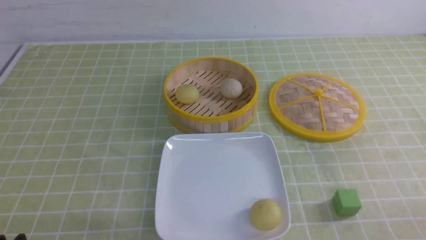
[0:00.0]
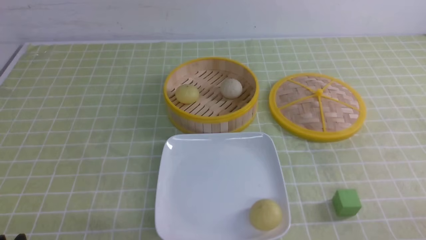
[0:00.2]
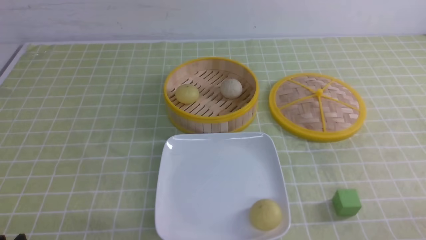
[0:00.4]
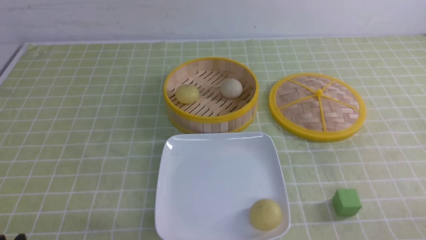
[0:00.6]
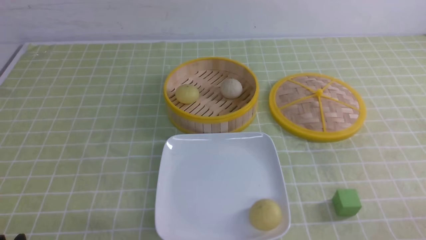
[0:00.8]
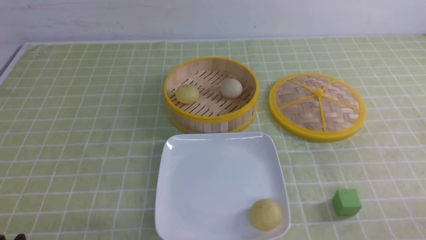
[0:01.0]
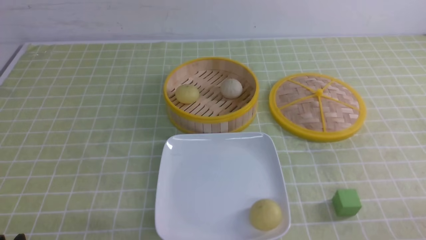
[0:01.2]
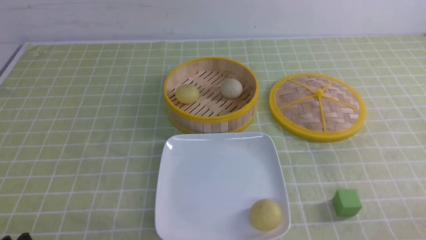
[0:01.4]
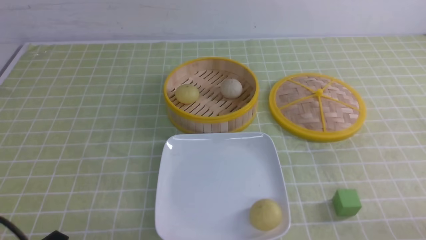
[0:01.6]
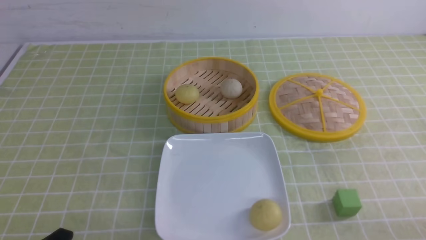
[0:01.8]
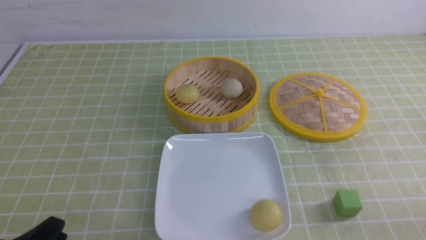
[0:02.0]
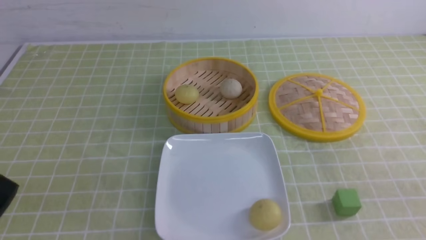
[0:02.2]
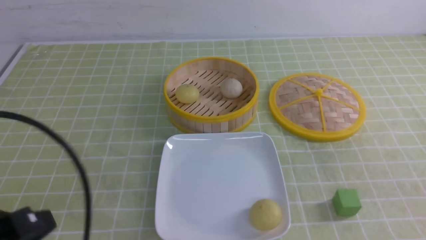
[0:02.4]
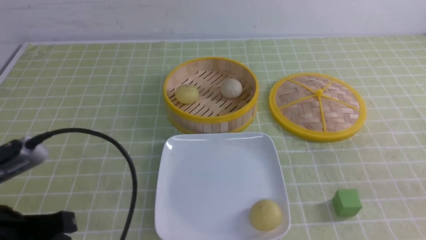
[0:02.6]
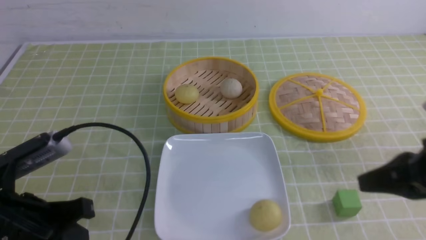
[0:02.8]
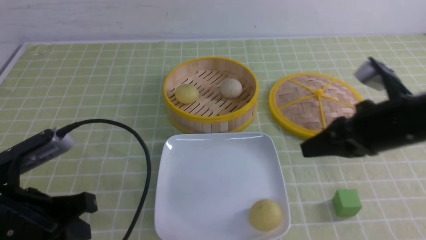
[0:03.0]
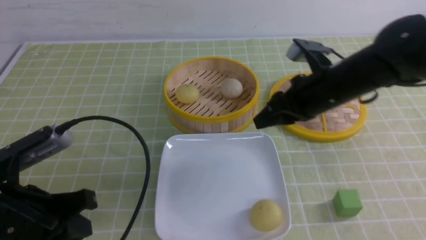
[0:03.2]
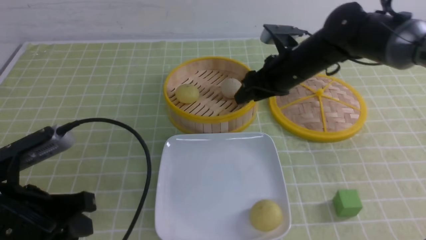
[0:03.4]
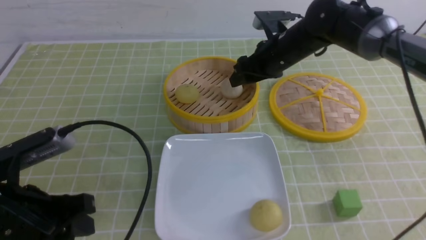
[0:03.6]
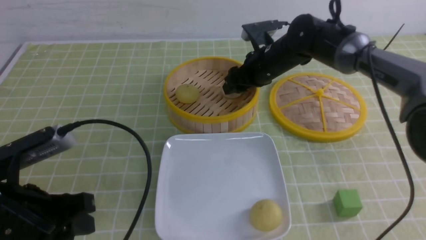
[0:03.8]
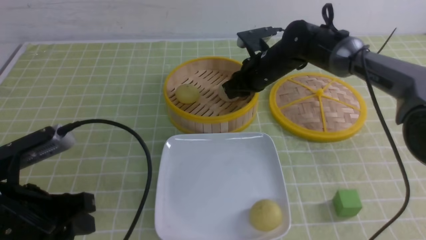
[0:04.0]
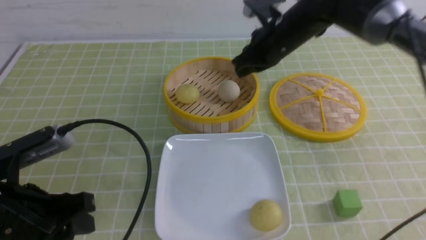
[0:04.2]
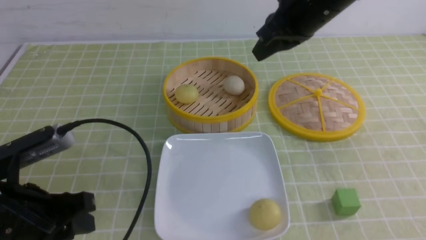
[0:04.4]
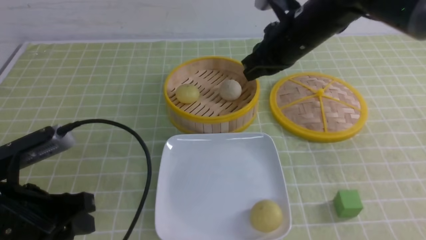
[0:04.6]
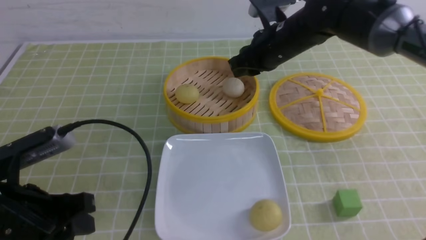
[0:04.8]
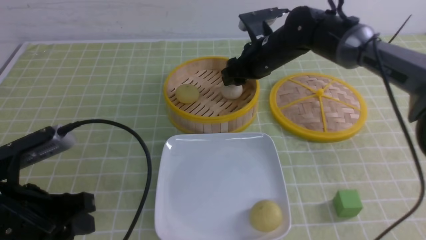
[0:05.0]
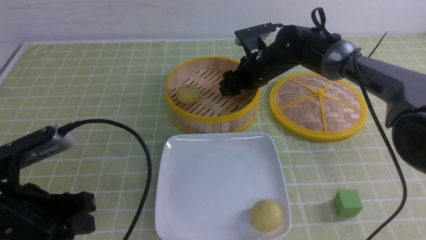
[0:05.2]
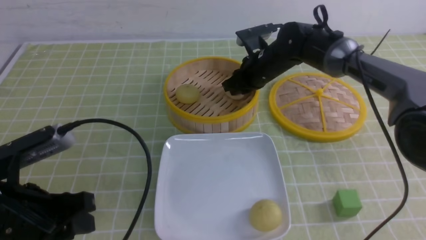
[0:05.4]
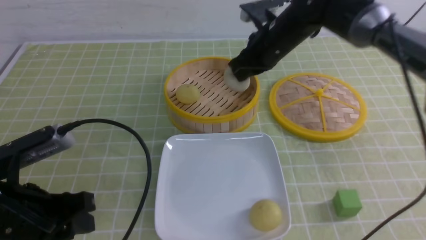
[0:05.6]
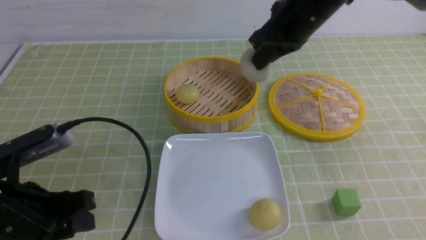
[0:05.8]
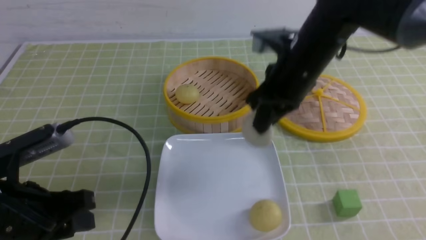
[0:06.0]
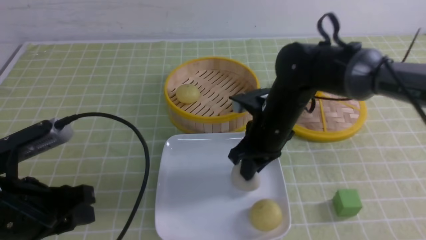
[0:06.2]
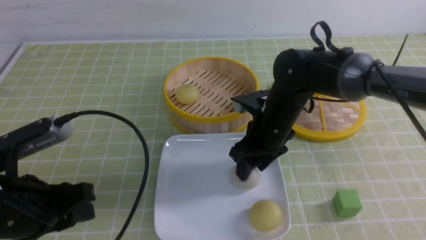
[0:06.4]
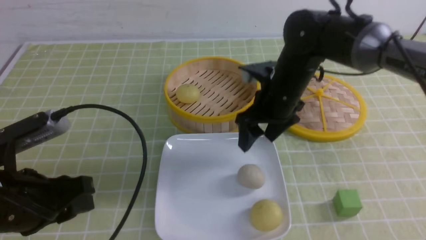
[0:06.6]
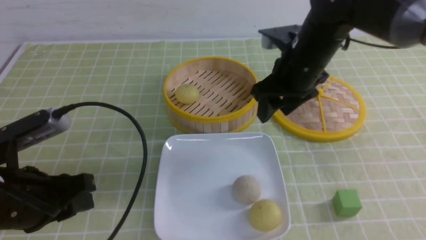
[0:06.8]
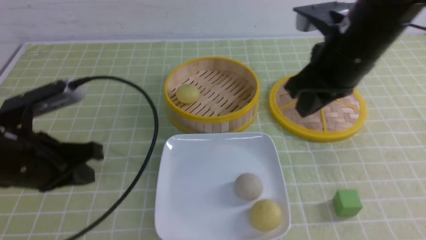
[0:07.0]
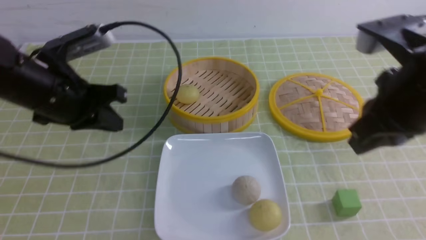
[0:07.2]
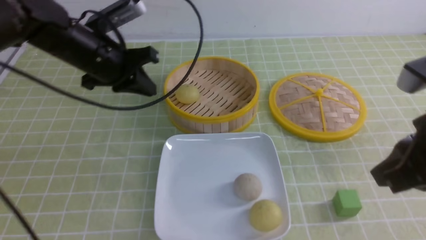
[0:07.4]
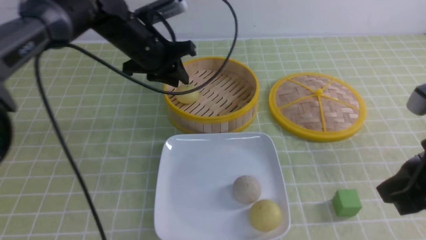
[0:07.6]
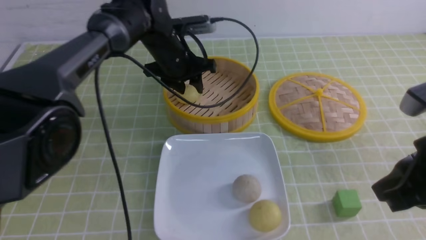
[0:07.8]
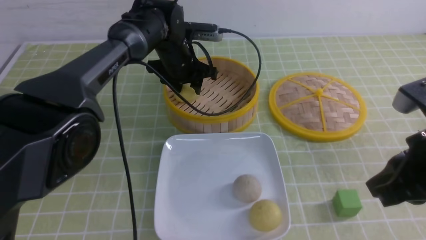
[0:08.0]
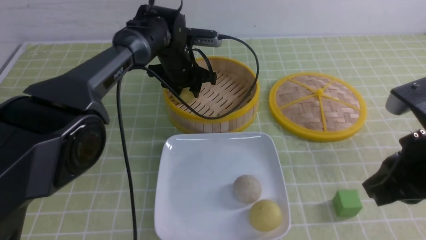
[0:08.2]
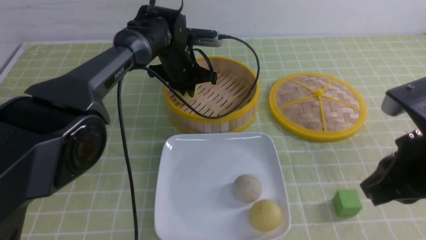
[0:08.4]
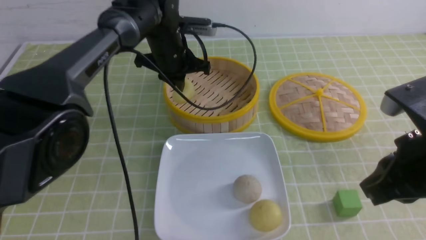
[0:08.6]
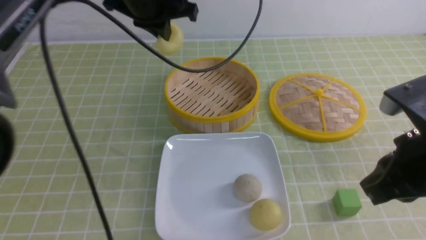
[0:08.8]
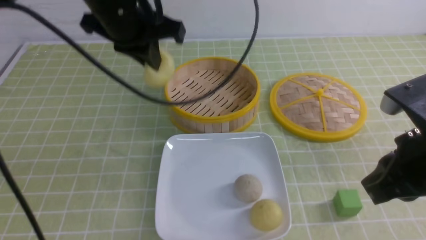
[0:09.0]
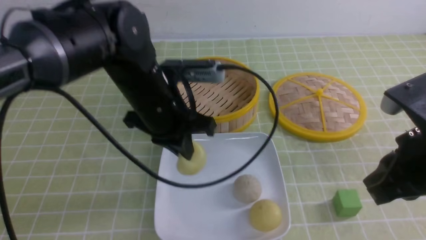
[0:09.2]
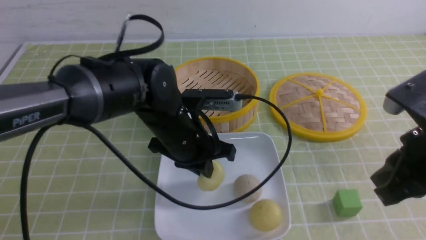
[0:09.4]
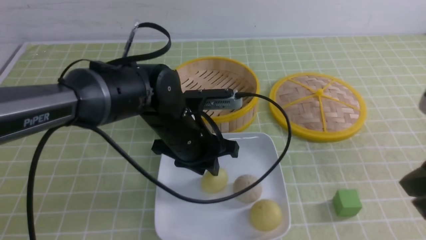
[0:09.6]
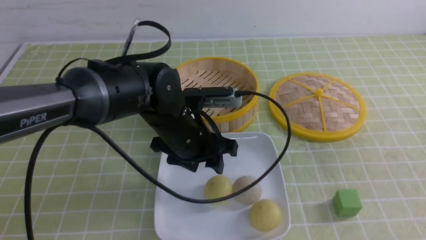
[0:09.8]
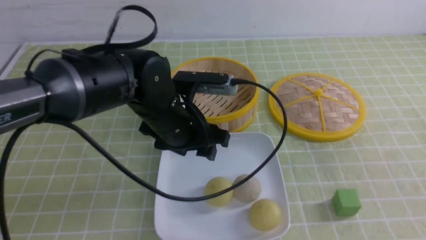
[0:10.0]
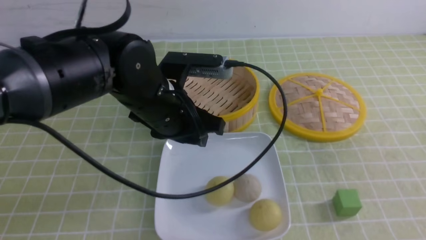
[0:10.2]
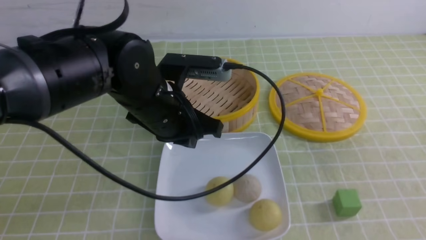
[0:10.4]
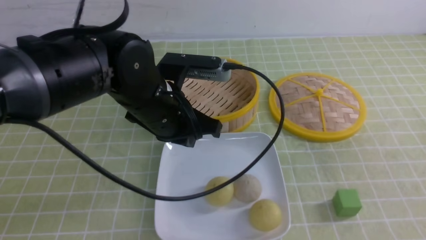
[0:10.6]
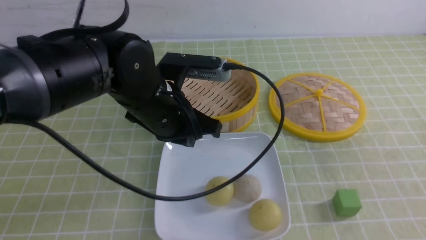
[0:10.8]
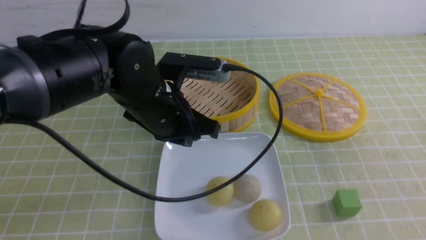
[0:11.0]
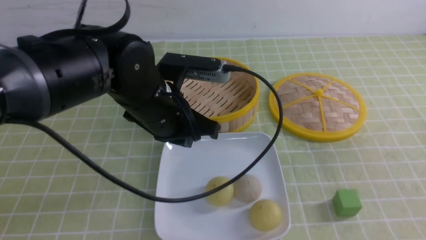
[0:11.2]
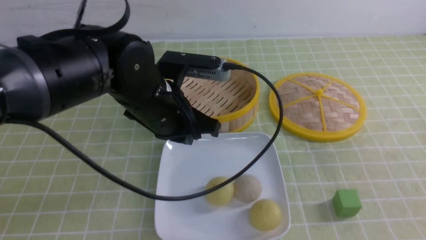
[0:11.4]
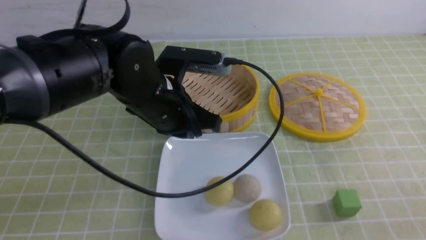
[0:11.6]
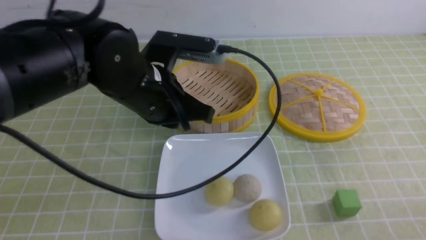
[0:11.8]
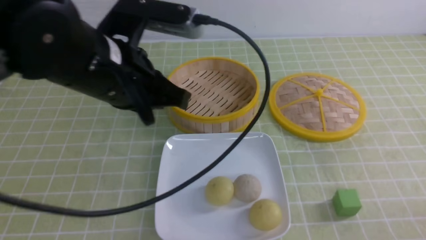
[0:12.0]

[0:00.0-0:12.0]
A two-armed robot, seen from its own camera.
Step, 0:00.0 to 0:05.4: use the right arm to grab the steamed stuffed bun that is closest to it.
Step, 0:05.6 to 0:06.2: use the right arm to put the steamed stuffed bun into the plate.
Step, 0:06.6 to 0:08.4: use the left arm to grab the steamed stuffed bun that is closest to it.
Step, 0:08.6 to 0:09.8: use the left arm to put the steamed stuffed bun into the plate.
0:01.6 to 0:03.0: The left gripper travels forward and upward by about 10 cm, and closes up. Meanwhile the right gripper heads forward, upward and to the left, covering some 25 cm.
0:03.0 to 0:04.4: The left gripper opens; the right gripper moves forward and to the left, about 15 cm, and opens, then closes once more.
0:04.4 to 0:06.0: The right gripper goes up and down, approximately 15 cm each way, reversing 2 times, and opens and closes again.
0:06.0 to 0:07.6: The left gripper moves forward, roughly 30 cm, and closes, then opens again. The right gripper shifts about 25 cm backward and to the right, and opens, then closes once more.
0:07.6 to 0:09.0: The left gripper is displaced backward and upward by about 10 cm, and closes up.
0:09.0 to 0:10.4: The left gripper moves backward and downward, approximately 10 cm, and opens and closes again. Meanwhile the right gripper travels backward and to the right by approximately 15 cm.
0:10.4 to 0:12.0: The right gripper shifts roughly 15 cm downward. Meanwhile the left gripper shifts roughly 10 cm upward and backward.

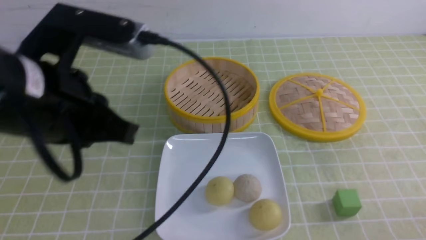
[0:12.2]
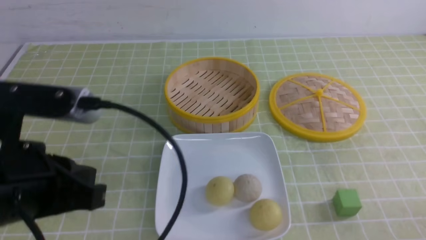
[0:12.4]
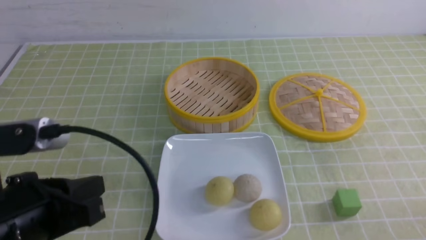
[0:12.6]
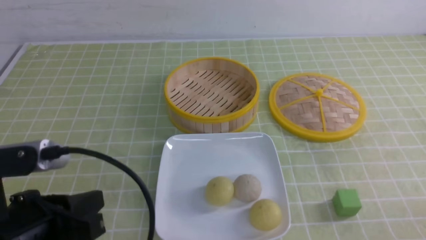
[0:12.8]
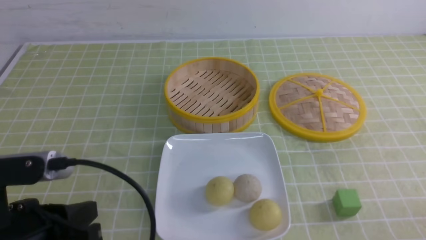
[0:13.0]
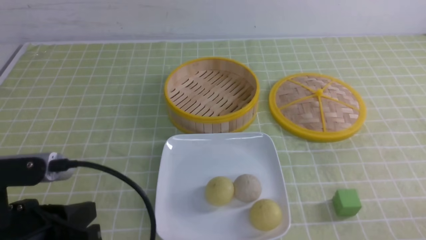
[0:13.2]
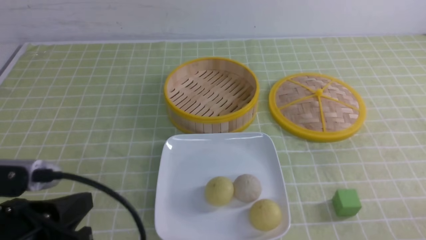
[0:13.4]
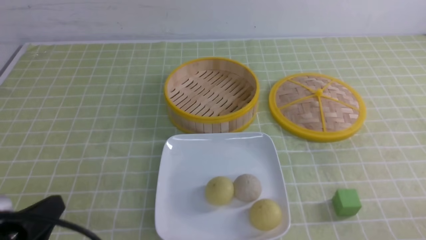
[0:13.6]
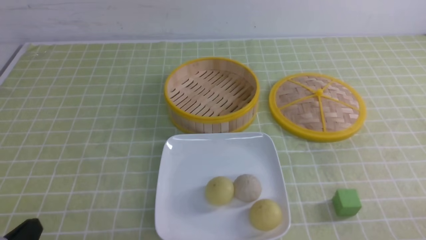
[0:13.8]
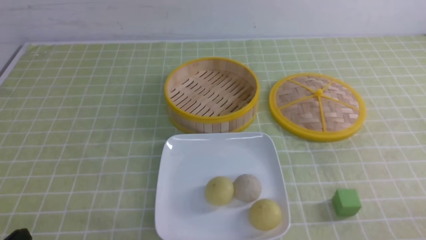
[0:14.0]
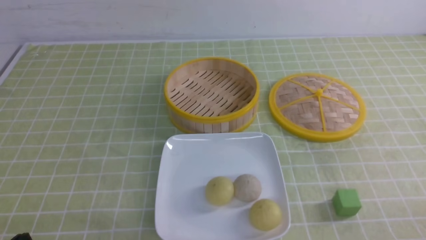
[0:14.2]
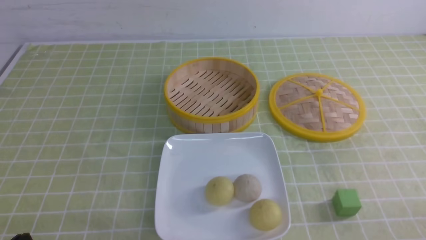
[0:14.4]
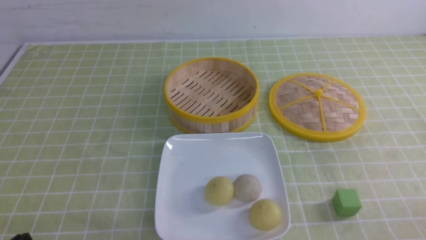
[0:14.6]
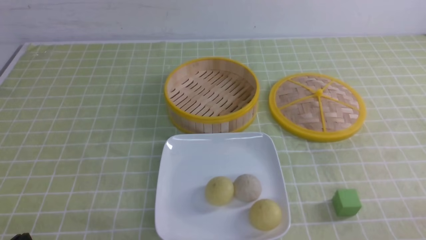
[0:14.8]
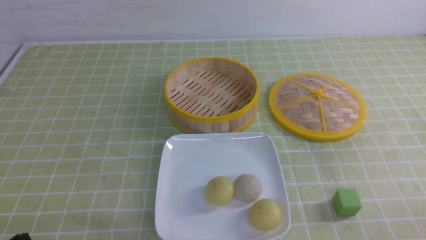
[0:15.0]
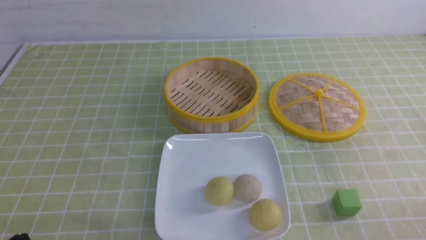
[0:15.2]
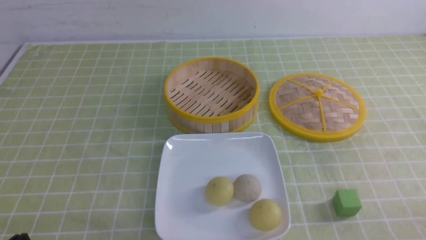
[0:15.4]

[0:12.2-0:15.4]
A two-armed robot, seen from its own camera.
0:12.2 to 0:13.8: The left gripper goes some 20 cm downward, backward and to the left.

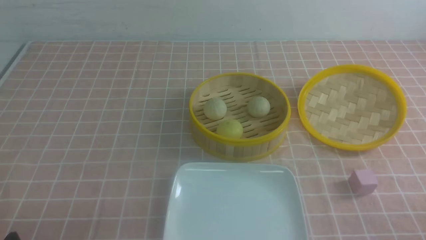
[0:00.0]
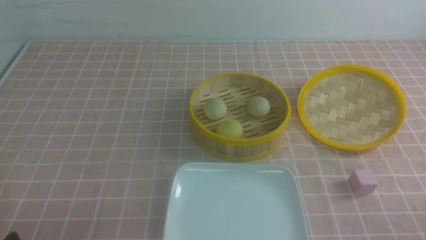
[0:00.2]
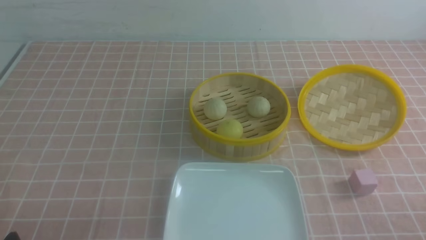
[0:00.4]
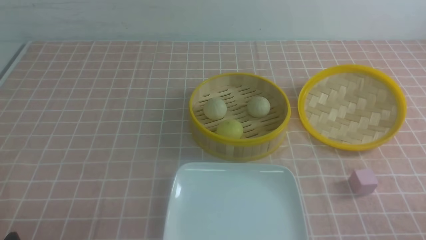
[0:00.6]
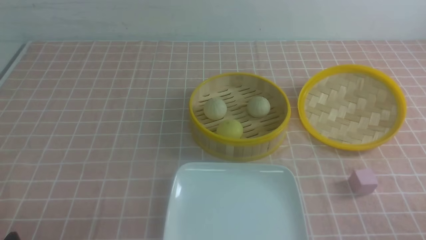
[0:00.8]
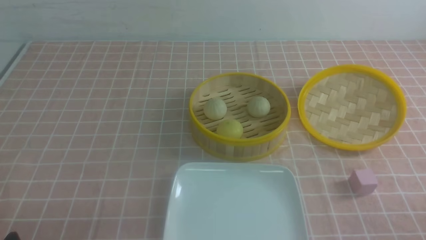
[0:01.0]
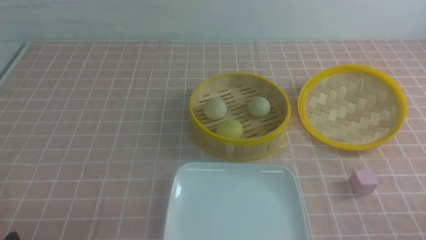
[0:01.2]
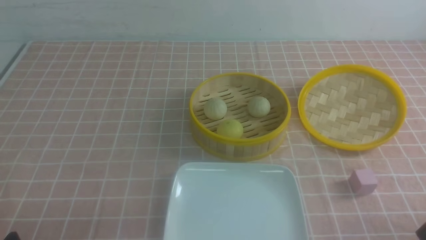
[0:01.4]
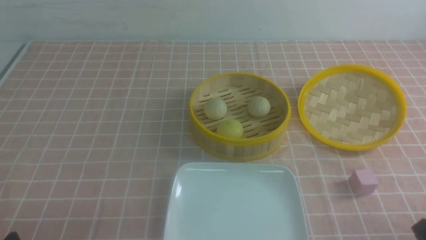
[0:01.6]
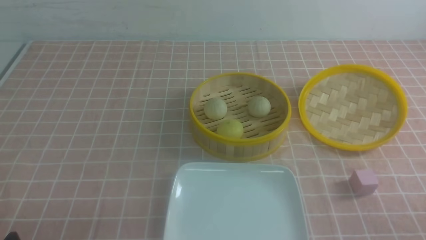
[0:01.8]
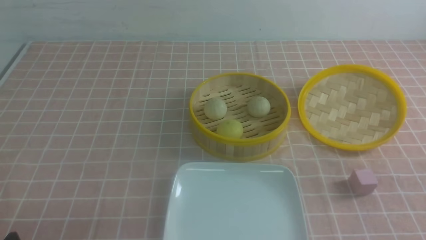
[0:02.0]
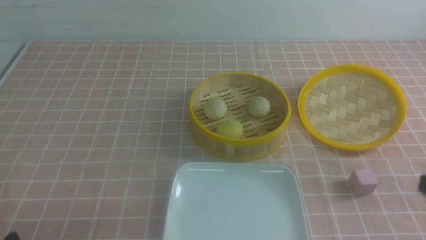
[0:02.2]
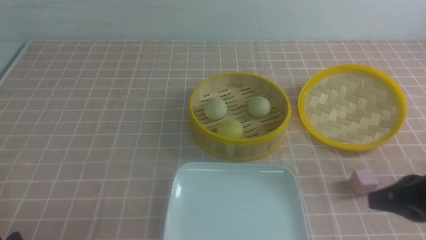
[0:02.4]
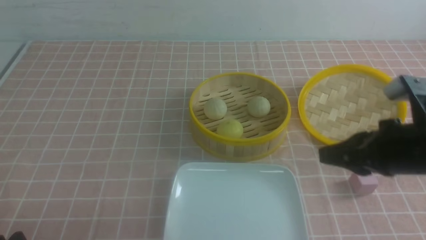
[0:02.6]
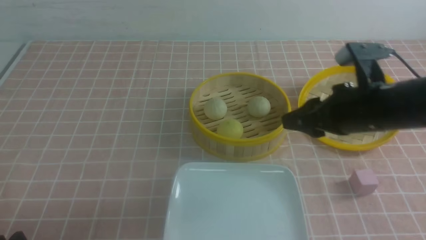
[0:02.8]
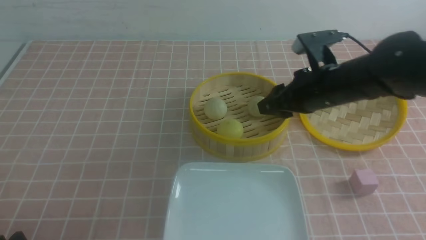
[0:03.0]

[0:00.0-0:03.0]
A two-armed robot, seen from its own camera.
0:01.6 to 0:03.0: The right gripper shifts some 35 cm forward and to the left, and closes, then reopens.
